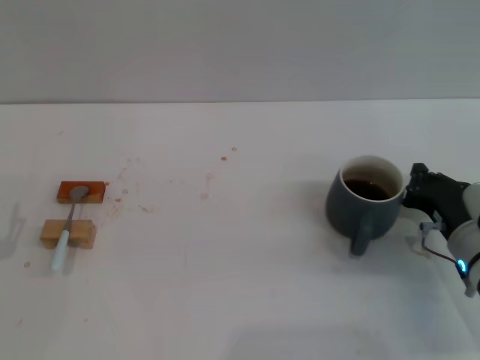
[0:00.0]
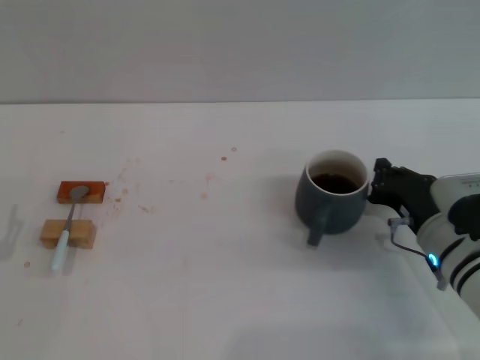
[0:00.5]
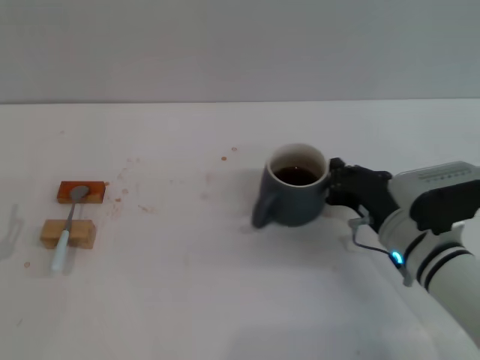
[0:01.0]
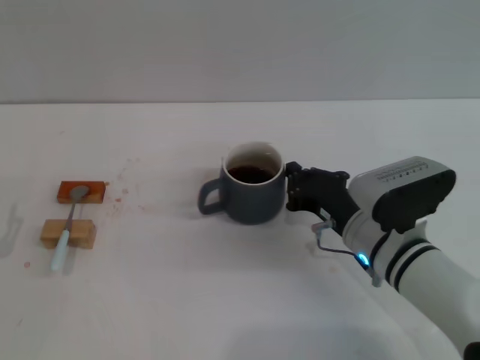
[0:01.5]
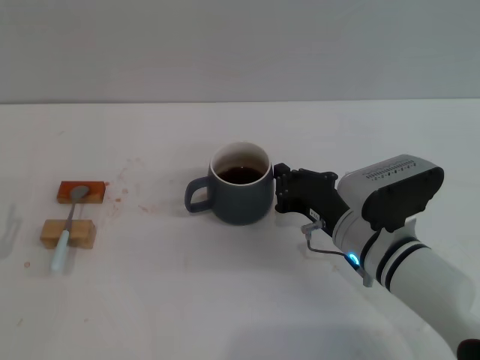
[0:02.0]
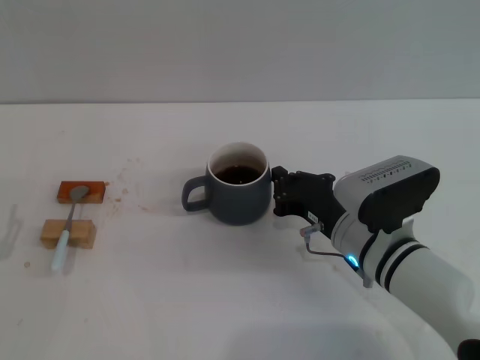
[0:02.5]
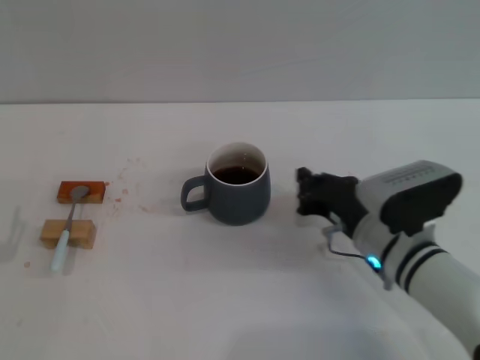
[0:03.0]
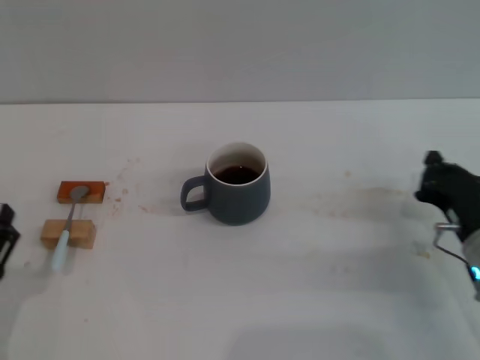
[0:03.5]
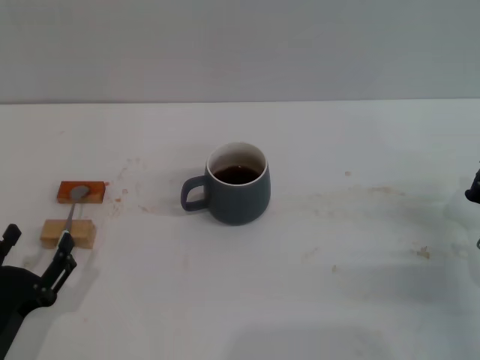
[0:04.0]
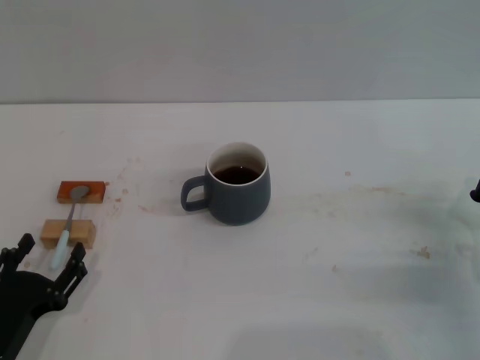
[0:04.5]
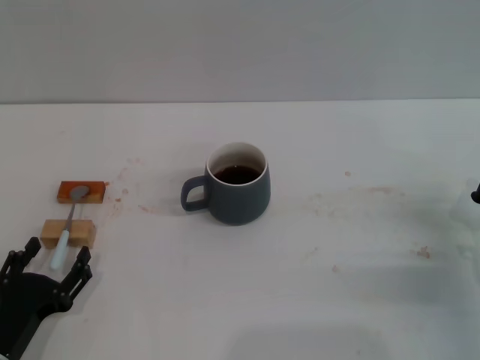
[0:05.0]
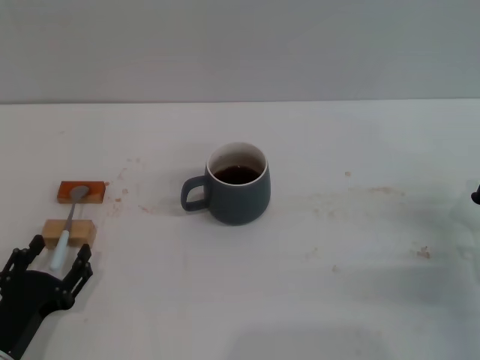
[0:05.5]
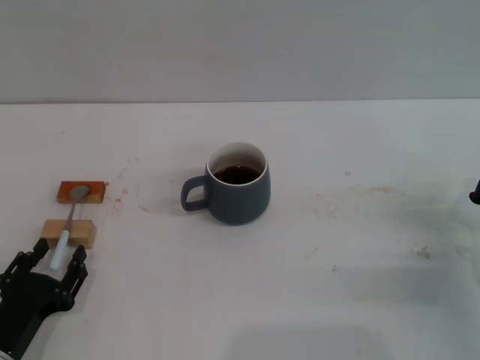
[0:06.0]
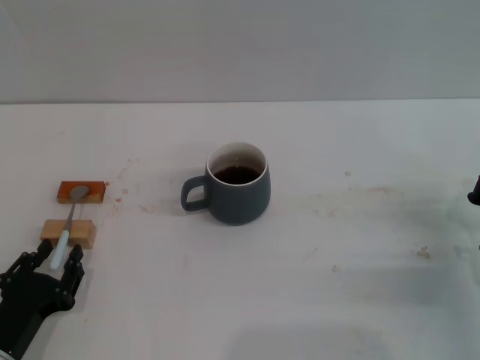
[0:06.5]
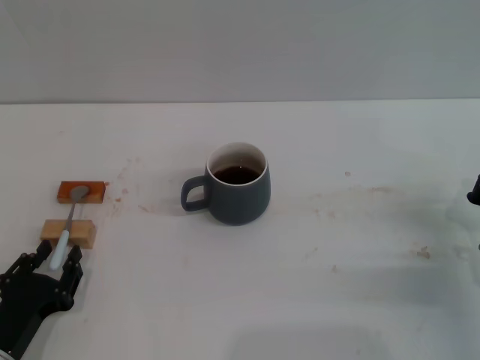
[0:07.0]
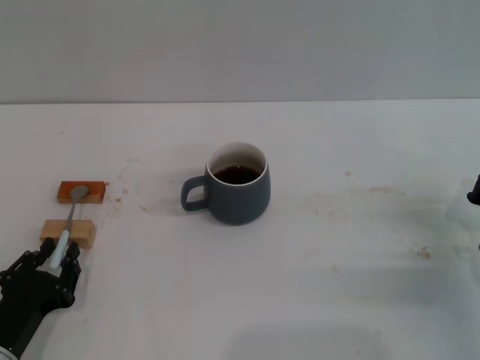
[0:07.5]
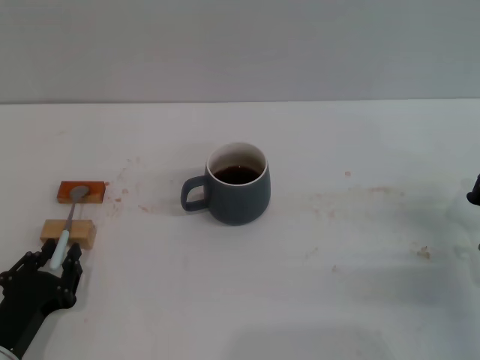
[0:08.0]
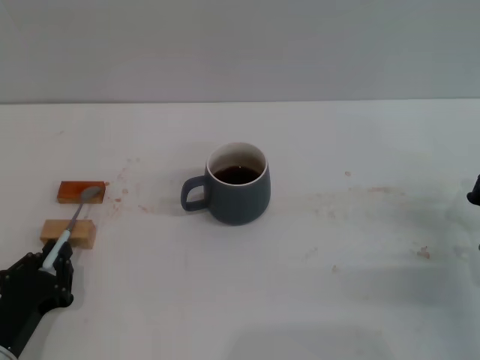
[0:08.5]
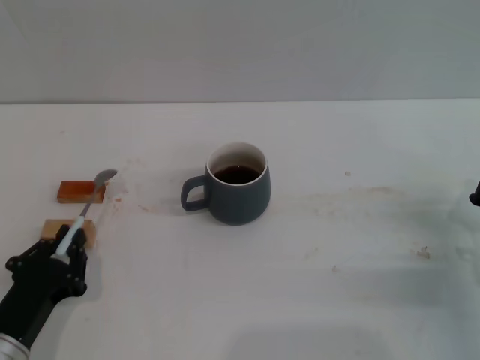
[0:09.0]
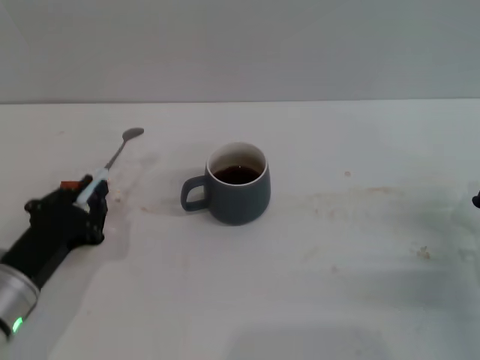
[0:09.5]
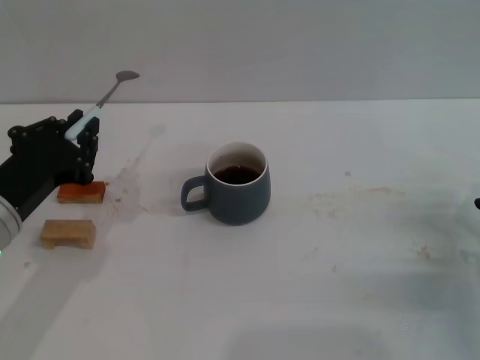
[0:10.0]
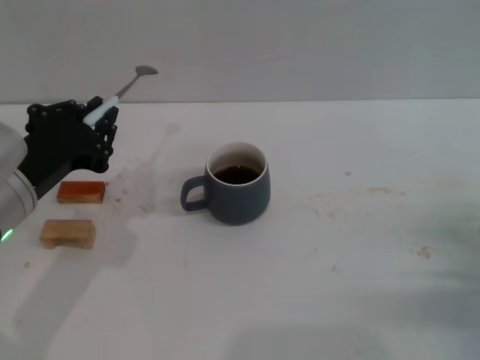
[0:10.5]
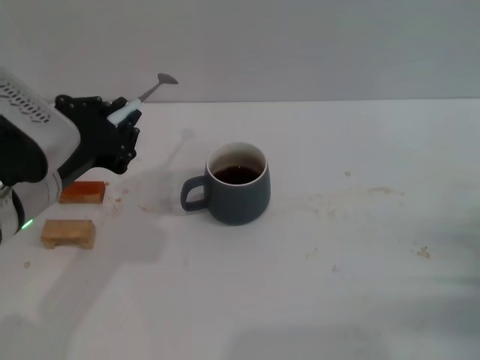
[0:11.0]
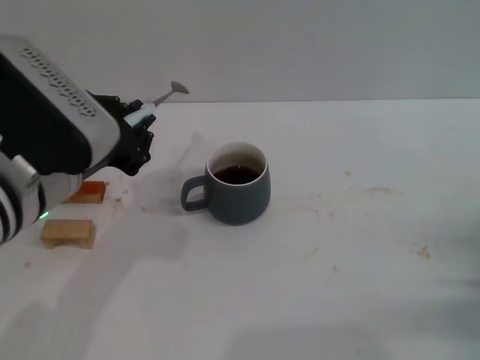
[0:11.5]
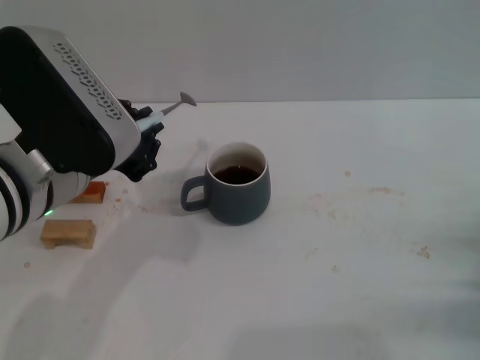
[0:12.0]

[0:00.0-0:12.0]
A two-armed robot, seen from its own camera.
Task of the whole recording: Move the grey cup to the center, lift the blue spoon, stir it three times in the cup, and put the spoon into the cup.
Step, 0:00.0 to 0:02.5: Move the cup with coffee to the center of view with the right gripper.
Step, 0:03.0 to 0:09.5: Pick up the spoon with the left gripper.
0:00.0 to 0:02.0: The right gripper moves to the left, approximately 10 cm.
0:02.0 to 0:04.0: The right gripper goes roughly 15 cm to the right. The left gripper goes roughly 5 cm to the right.
0:04.0 to 0:06.0: There are only small adjustments of the grippers.
0:06.0 to 0:08.0: The left gripper closes.
0:08.0 to 0:10.0: The left gripper travels upward and forward by about 15 cm.
0:10.0 to 0:12.0: The left gripper is displaced upward and to the right by about 10 cm.

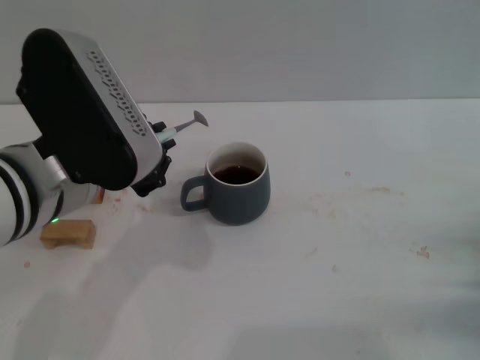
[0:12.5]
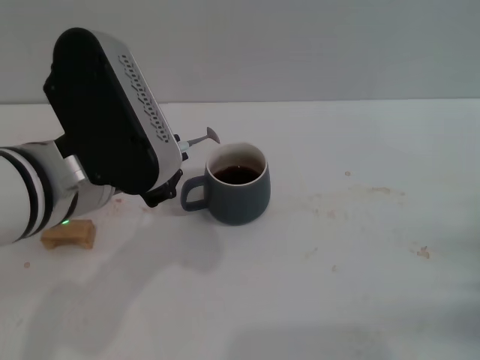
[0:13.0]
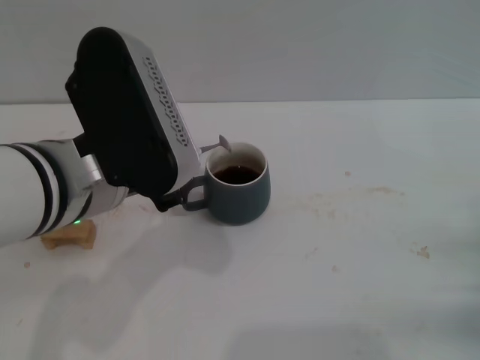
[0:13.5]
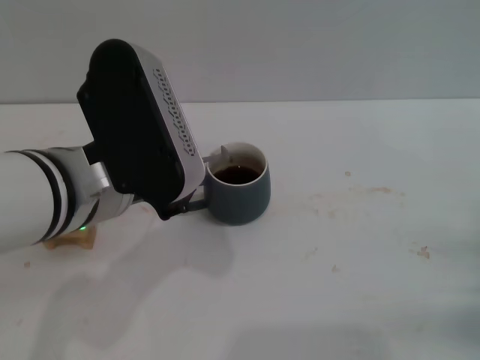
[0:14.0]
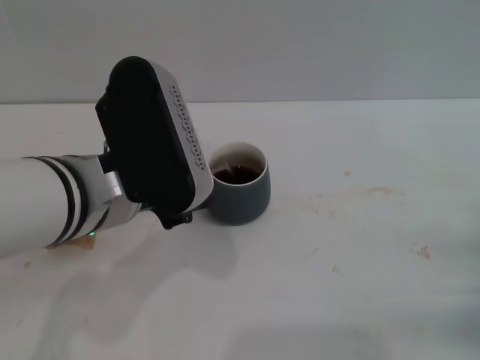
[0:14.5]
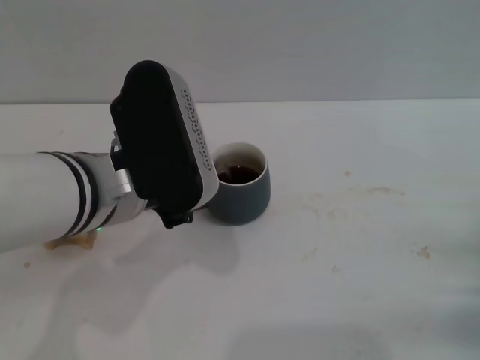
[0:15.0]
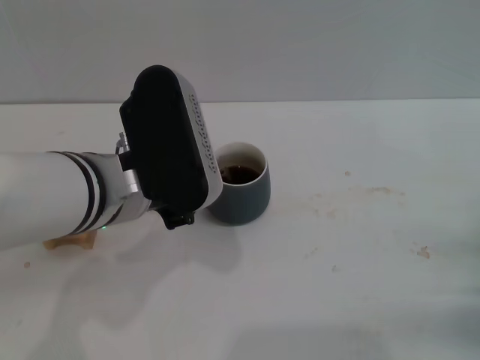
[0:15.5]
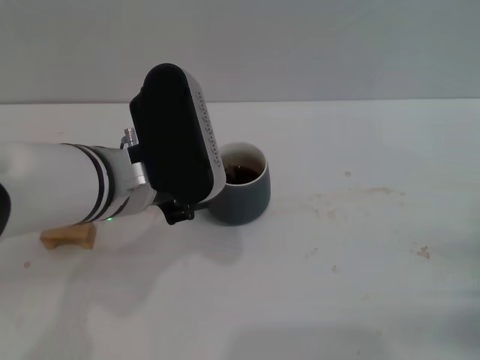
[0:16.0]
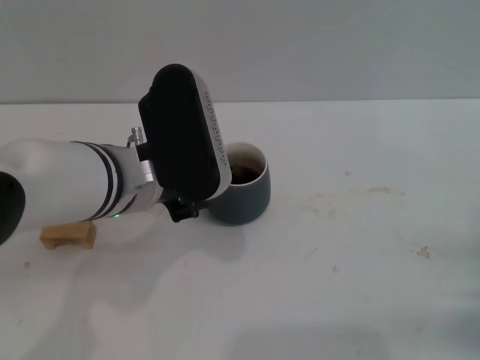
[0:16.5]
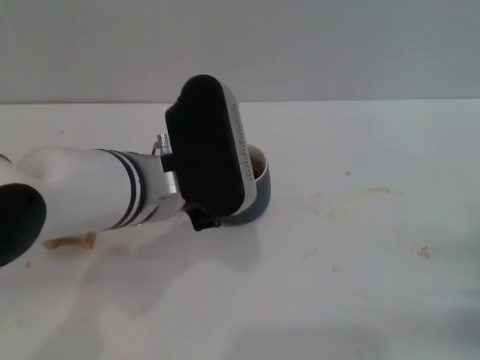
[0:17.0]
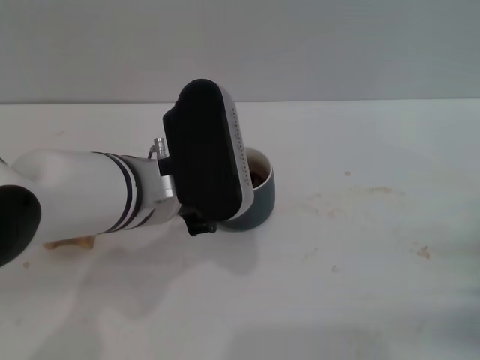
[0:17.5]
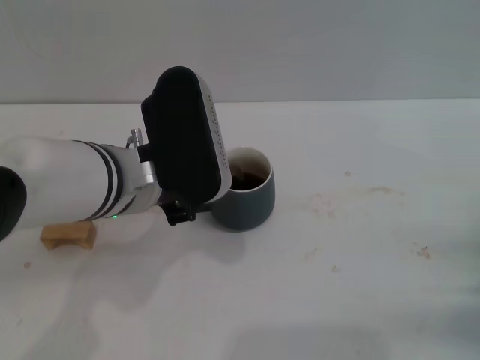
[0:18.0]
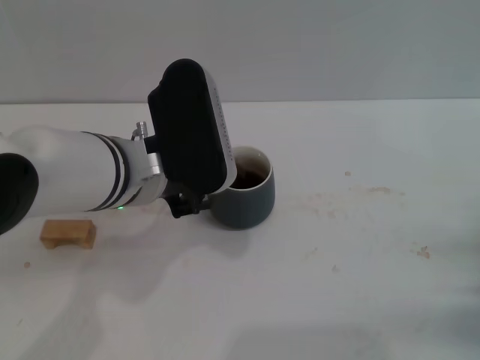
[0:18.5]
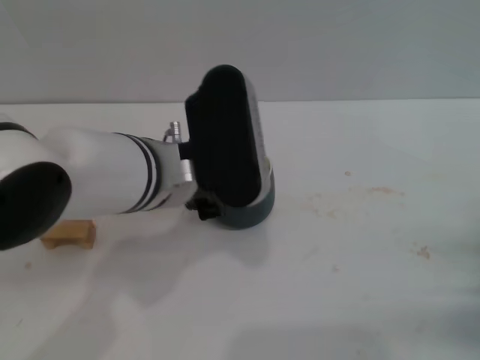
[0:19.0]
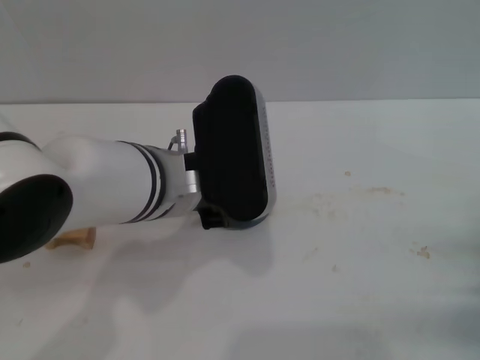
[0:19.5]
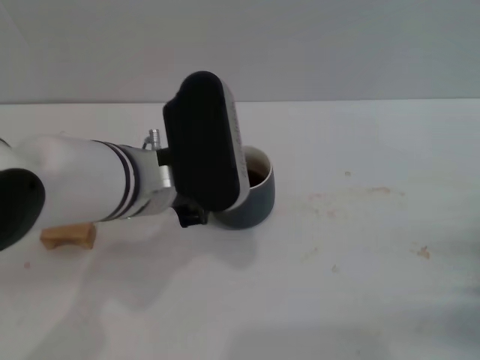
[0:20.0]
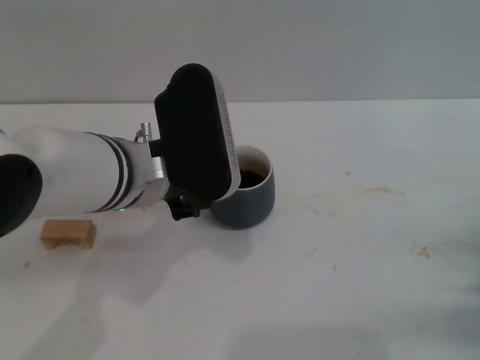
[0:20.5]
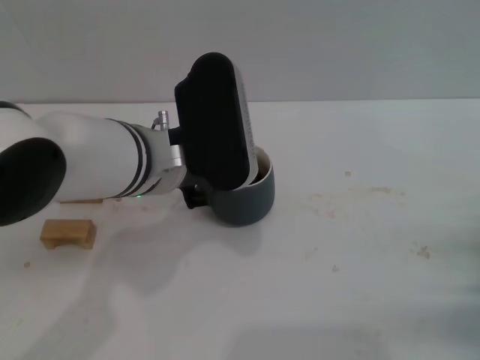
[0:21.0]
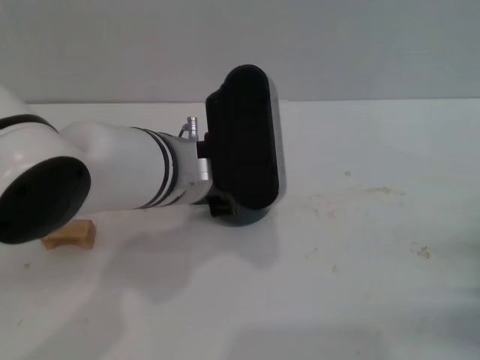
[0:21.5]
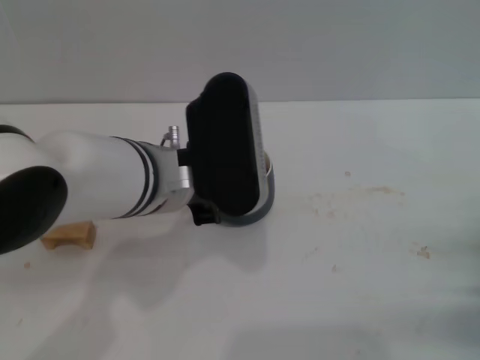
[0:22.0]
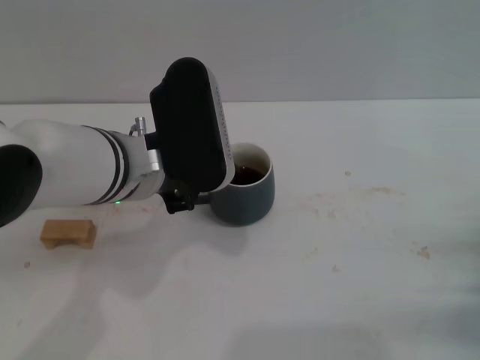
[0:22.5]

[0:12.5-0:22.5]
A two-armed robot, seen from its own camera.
Task of the whole recording: Move the grey cup to the center, lift the blue spoon, stir it three times in the cup, and put the spoon into the cup.
0:12.5 to 0:14.5: The grippers make only small movements.
0:14.5 to 0:20.5: The grippers move only a little.
0:20.5 to 0:22.5: The grippers move only a little.

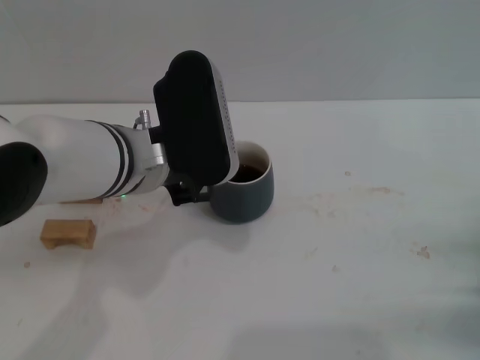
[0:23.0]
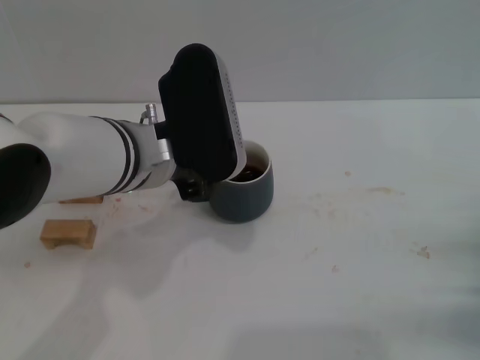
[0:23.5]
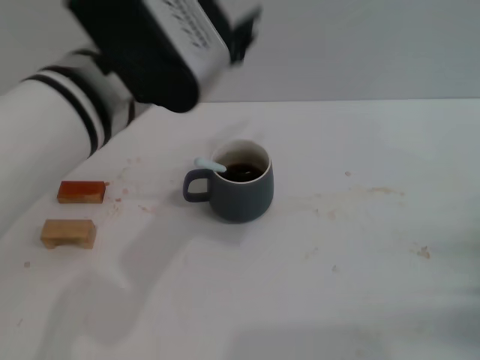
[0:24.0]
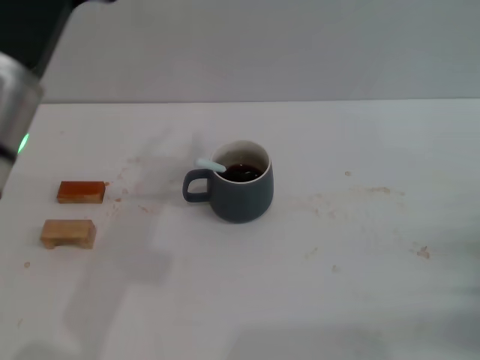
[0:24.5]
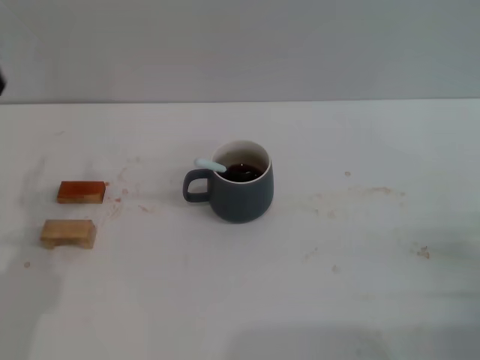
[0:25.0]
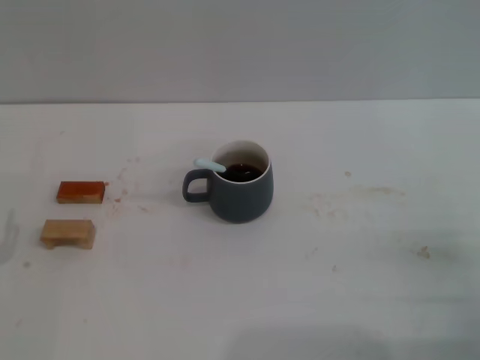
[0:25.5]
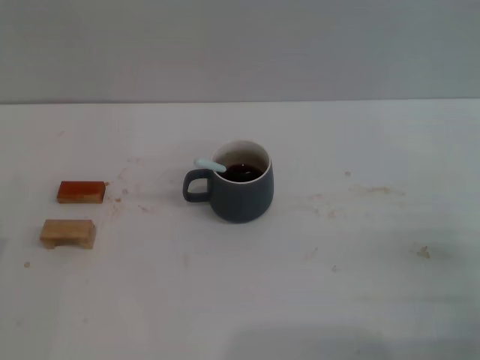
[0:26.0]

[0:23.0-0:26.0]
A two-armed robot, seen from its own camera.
Task of the whole recording: Move the grey cup to the center, lift the blue spoon, stir it three times in the cup, and put the spoon into the cup.
0:23.0 to 0:24.5: The left gripper heads backward, to the left and upward, covering roughly 10 cm, and opens up.
0:24.5 to 0:26.0: The left gripper moves downward and to the left, approximately 25 cm, and opens.
